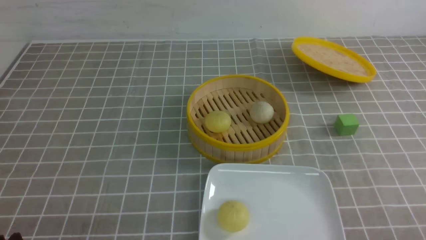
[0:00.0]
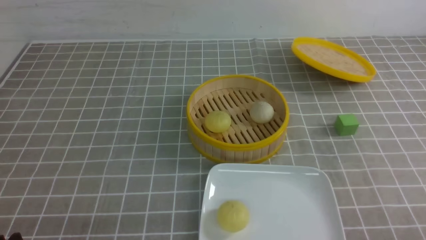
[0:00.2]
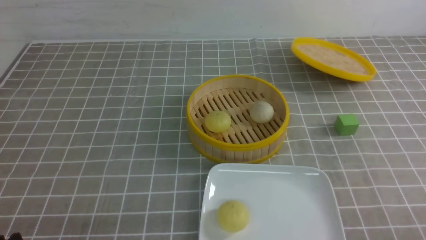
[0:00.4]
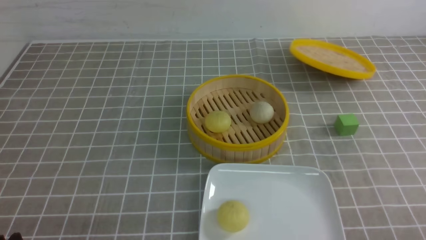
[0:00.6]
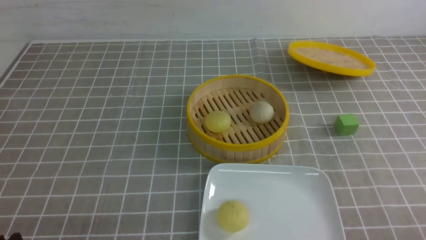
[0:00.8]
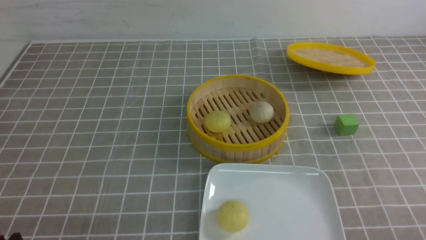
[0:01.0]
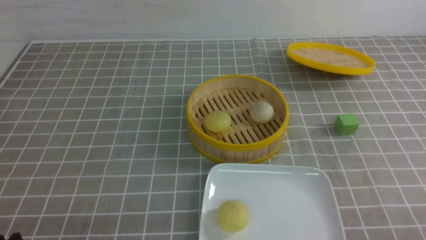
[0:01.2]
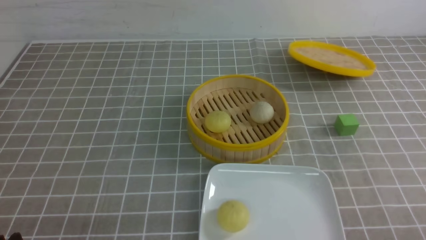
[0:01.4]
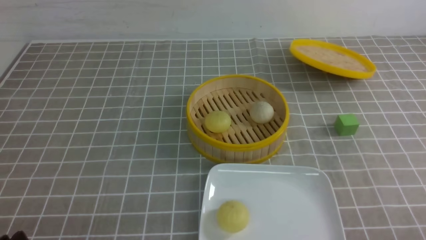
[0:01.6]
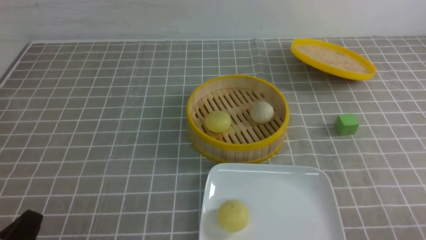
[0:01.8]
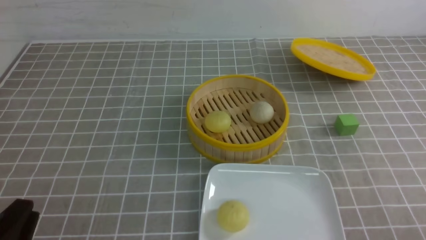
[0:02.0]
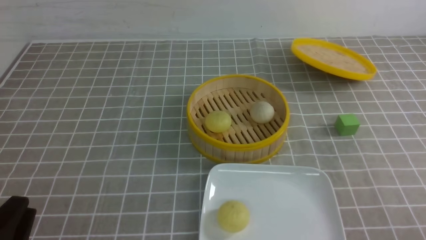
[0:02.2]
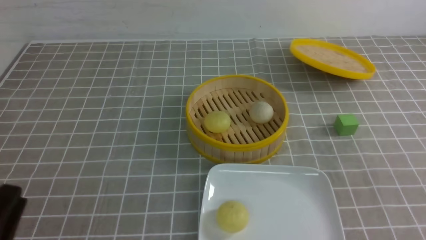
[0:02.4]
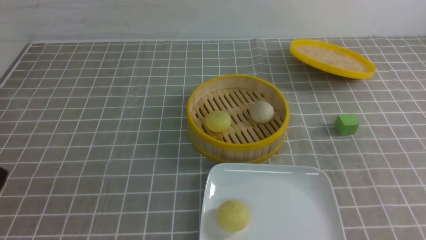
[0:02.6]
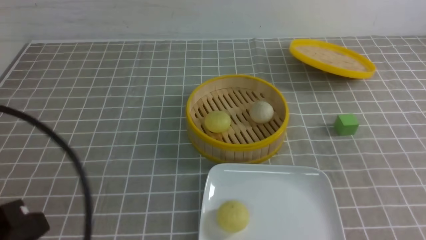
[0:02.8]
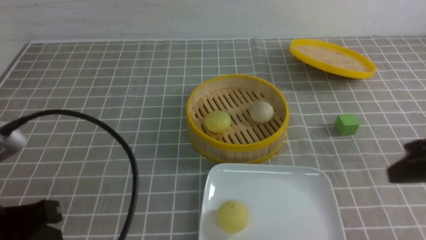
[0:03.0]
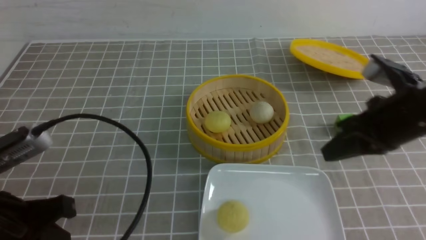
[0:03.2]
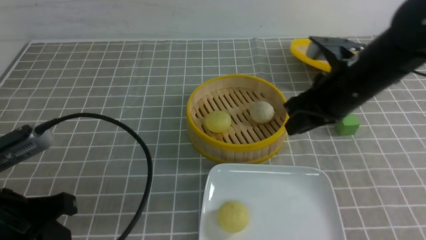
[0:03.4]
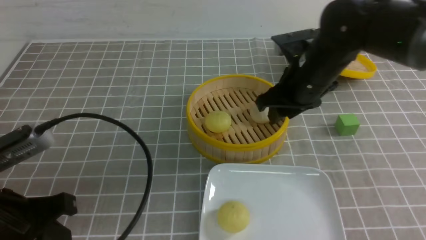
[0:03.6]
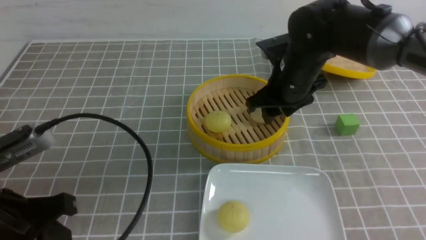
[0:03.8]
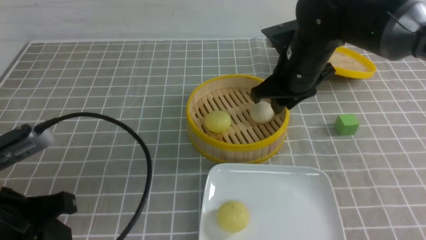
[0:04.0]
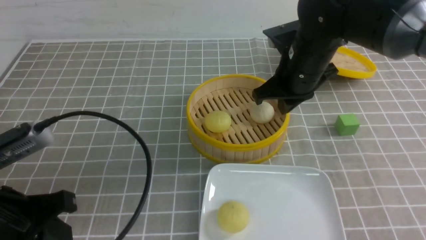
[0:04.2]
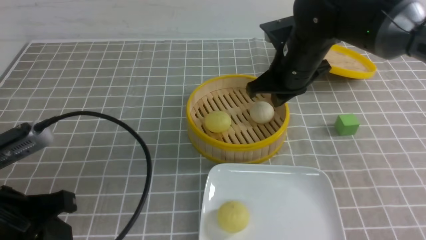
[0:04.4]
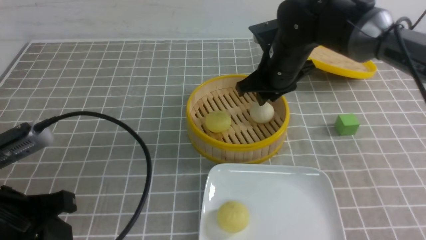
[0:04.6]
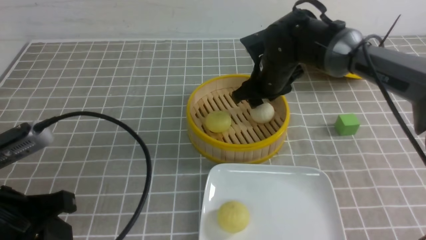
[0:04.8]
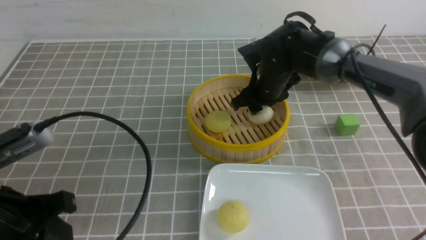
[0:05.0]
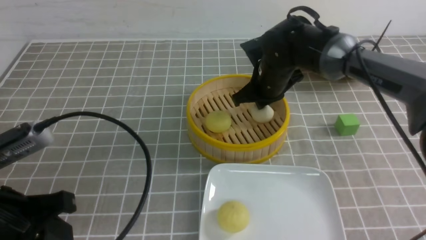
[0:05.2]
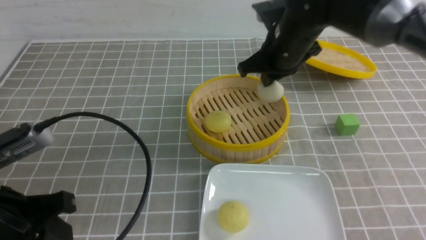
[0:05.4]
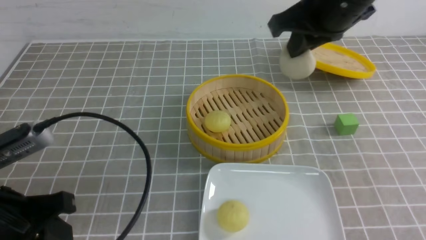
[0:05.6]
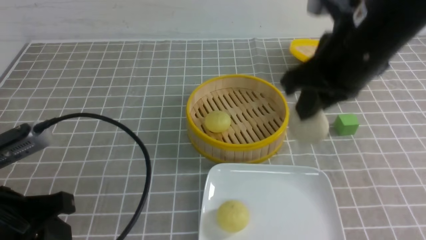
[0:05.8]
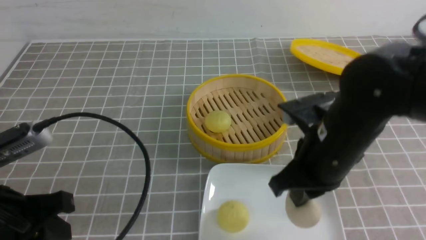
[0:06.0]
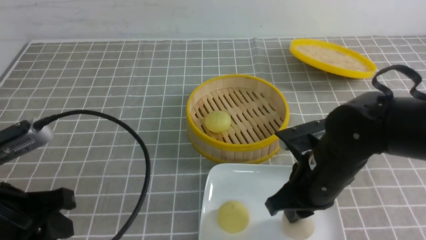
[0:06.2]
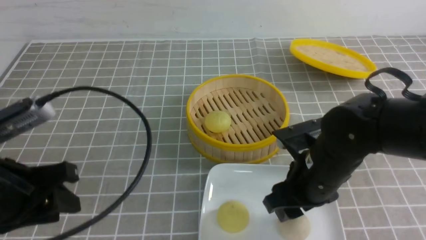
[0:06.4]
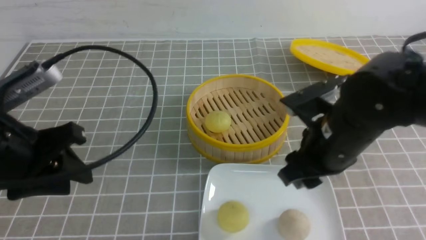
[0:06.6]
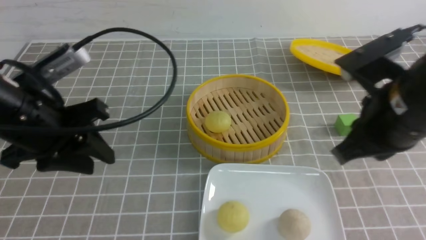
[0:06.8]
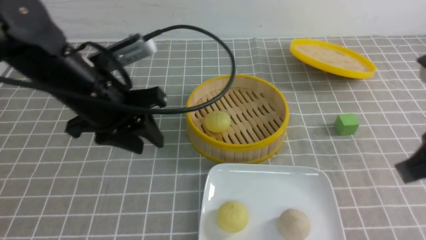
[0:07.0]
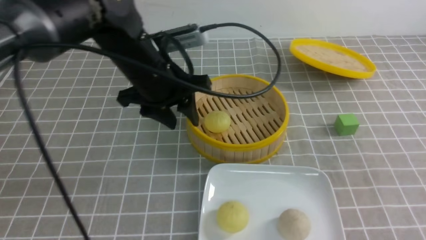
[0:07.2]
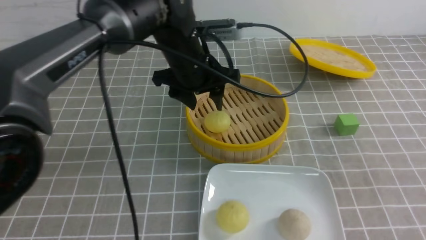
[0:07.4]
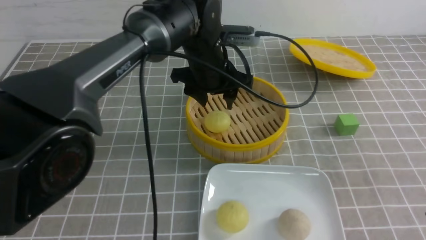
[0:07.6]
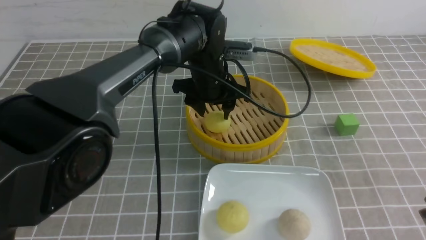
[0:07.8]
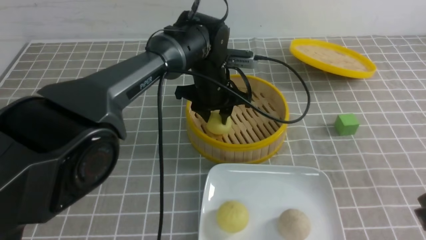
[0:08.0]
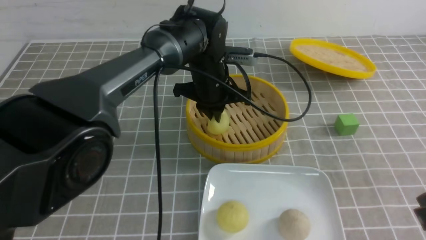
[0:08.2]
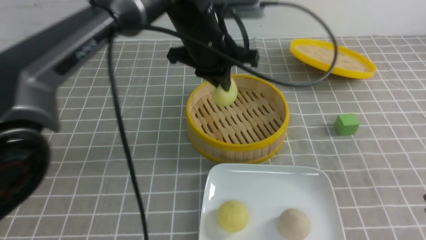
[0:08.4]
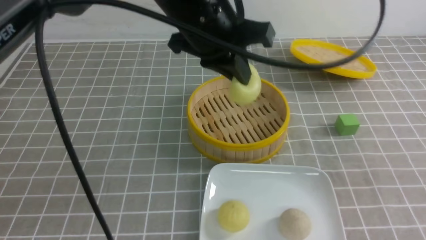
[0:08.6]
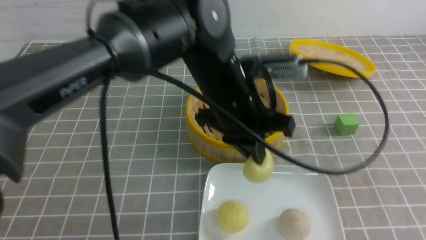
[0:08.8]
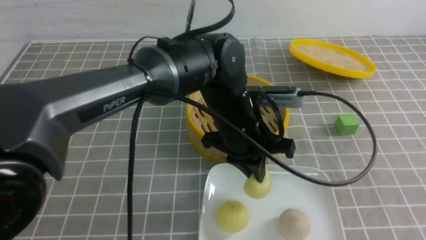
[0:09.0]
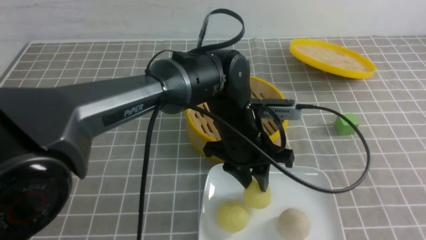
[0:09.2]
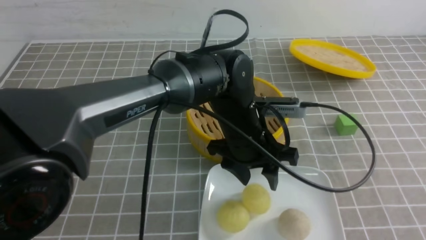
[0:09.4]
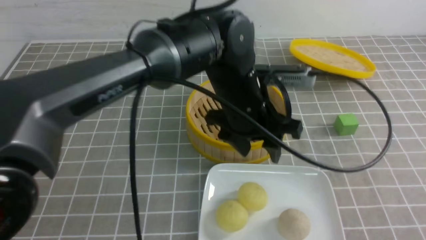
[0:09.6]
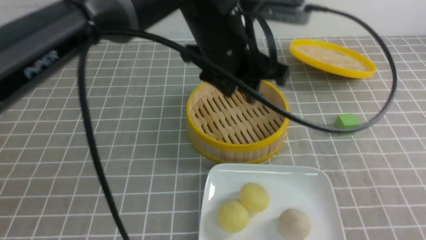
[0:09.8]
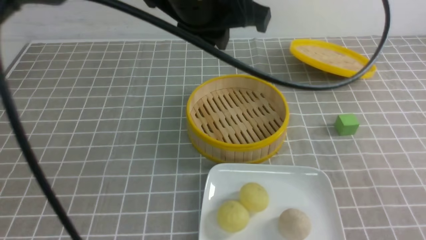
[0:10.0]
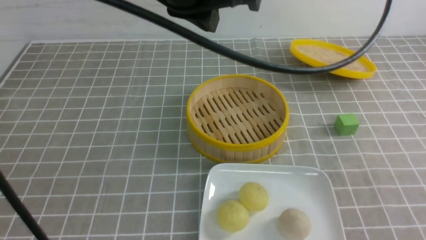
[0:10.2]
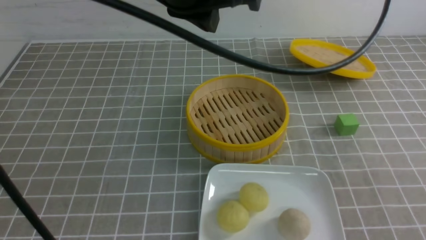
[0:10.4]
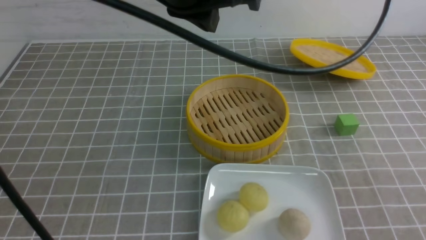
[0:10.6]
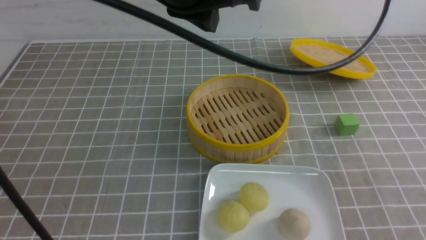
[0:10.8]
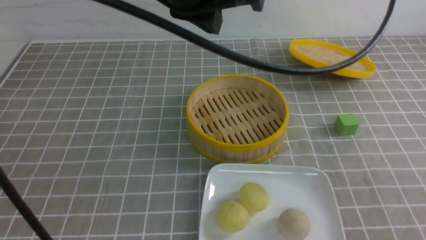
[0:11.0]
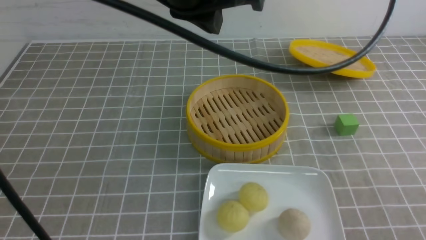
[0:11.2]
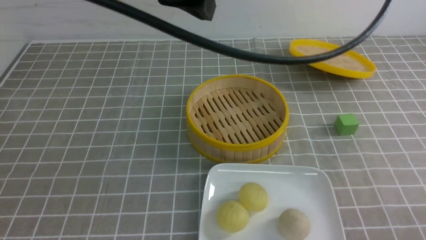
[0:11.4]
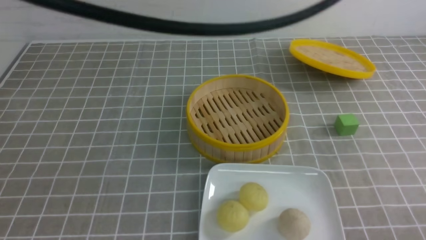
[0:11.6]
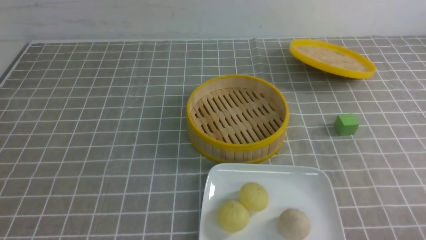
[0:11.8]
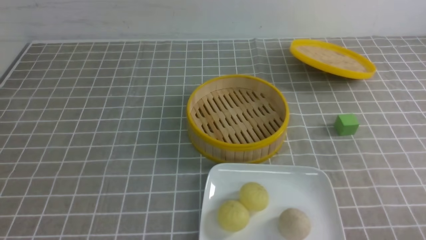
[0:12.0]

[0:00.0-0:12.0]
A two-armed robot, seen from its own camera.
Step, 0:00.0 to 0:05.2: use the right arm to grab the steamed stuffed bun that is closest to it.
Step, 0:05.4 to 0:06.4: use the right arm to put the steamed stuffed bun into the plate.
Step, 0:06.6 to 0:08.2: use the left arm to grab the steamed stuffed bun that is closest to it.
Step, 0:08.4 to 0:09.2: use the left arm to put the steamed stuffed bun into the plate.
0:01.6 to 0:03.0: The left gripper moves upward and forward, some 10 cm, and closes its fingers, while the right gripper moves forward and upward, some 20 cm, and closes up.
0:03.0 to 0:04.4: The right gripper travels forward and to the left by about 25 cm, and opens and closes again.
0:04.4 to 0:06.0: The right gripper shifts approximately 15 cm backward, and opens, then closes again.
0:06.0 to 0:07.6: The right gripper travels backward, to the right and upward by some 20 cm, and opens, then closes again; the left gripper travels forward and to the right by roughly 35 cm, and opens.
0:07.6 to 0:09.0: The right gripper goes roughly 10 cm backward and to the right. Meanwhile the left gripper is displaced backward by about 10 cm, and closes.
0:09.0 to 0:10.4: The right gripper moves downward, approximately 10 cm; the left gripper is displaced upward by approximately 20 cm, and opens, then closes once more.
0:10.4 to 0:12.0: The left gripper moves backward, to the left and upward, about 20 cm. Meanwhile the right gripper shifts roughly 10 cm downward.

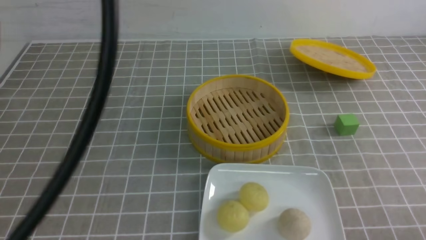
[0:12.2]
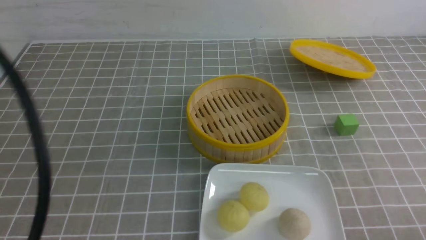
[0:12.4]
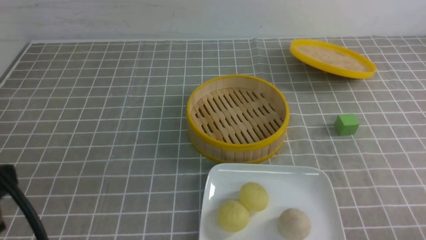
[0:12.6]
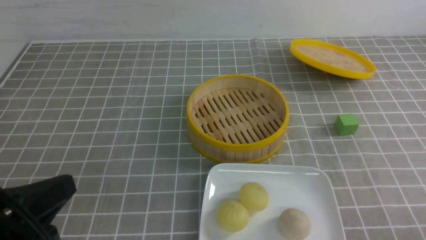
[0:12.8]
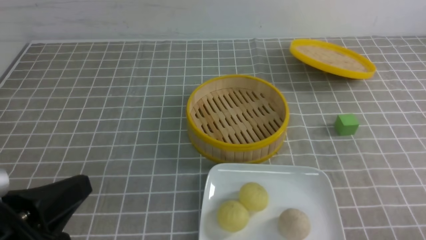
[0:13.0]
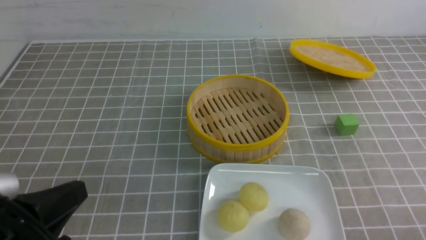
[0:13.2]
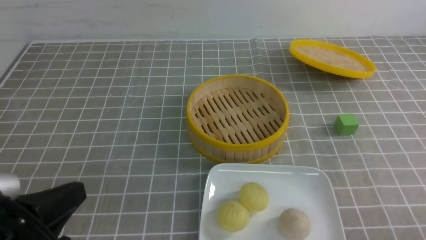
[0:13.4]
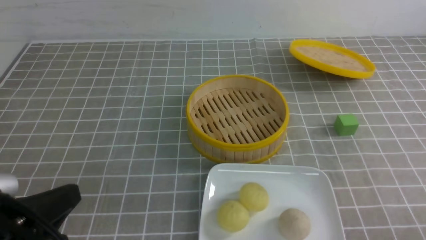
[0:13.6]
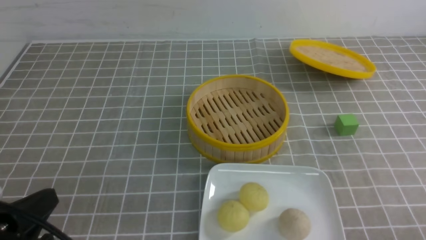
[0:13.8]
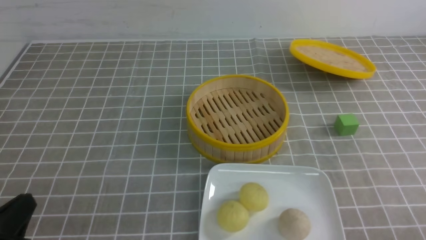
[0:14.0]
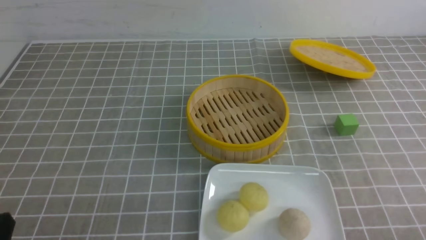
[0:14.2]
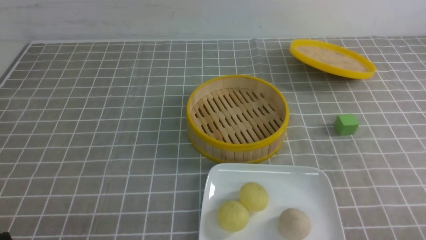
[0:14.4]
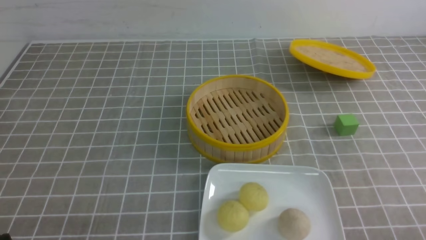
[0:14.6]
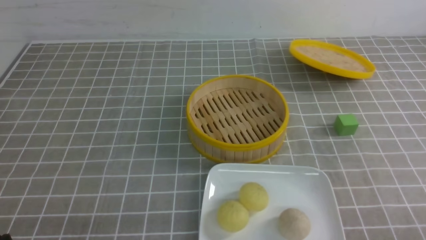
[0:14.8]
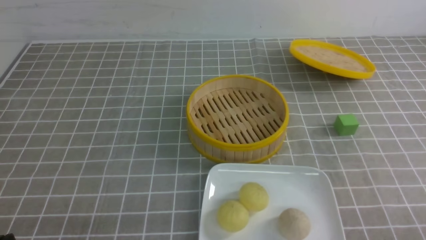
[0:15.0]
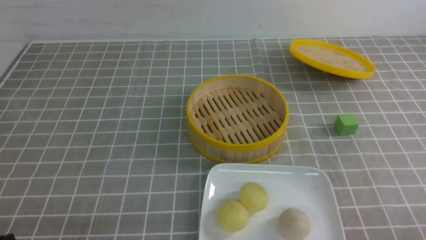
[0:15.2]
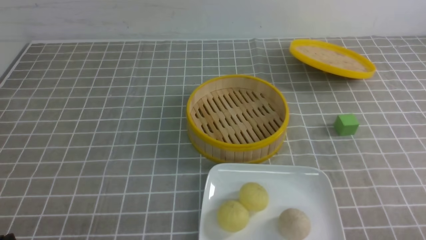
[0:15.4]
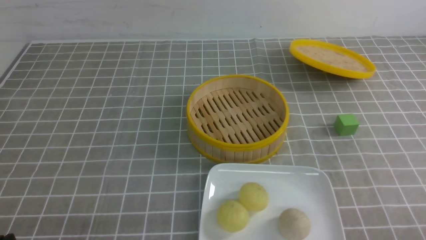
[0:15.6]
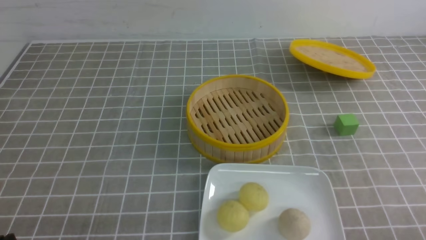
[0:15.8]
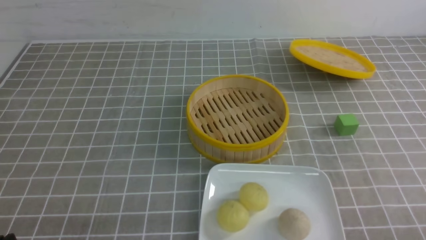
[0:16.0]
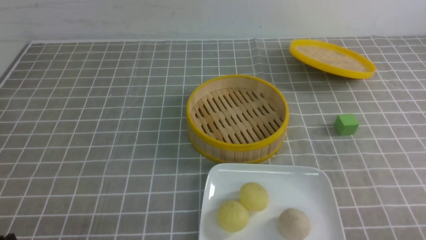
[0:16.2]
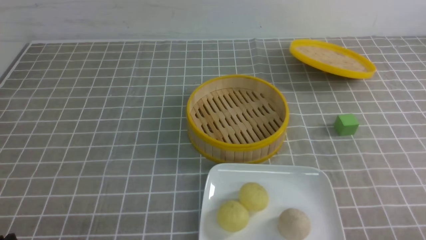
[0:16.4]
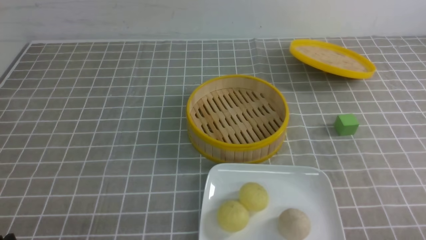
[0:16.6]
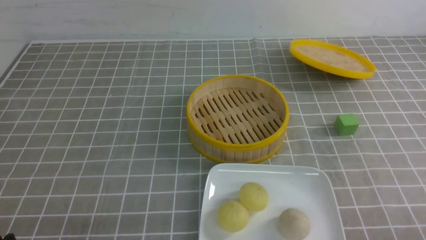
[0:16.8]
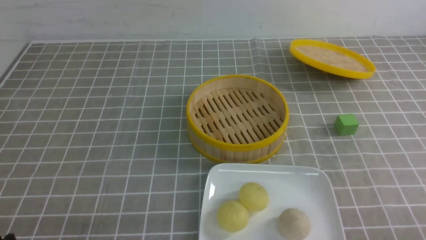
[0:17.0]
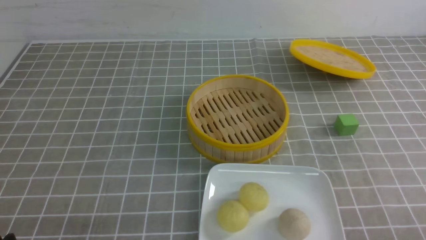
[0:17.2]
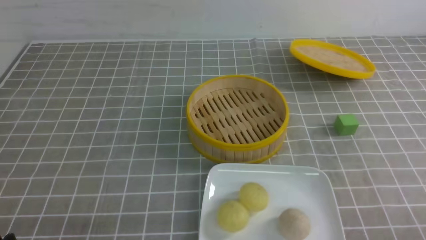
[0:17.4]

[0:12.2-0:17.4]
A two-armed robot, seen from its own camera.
0:12.2 to 0:14.0: The left gripper heads downward, covering some 25 cm.
0:14.0 to 0:15.6: The left gripper changes place by approximately 5 cm.
0:15.6 to 0:17.4: The two grippers keep their place.
